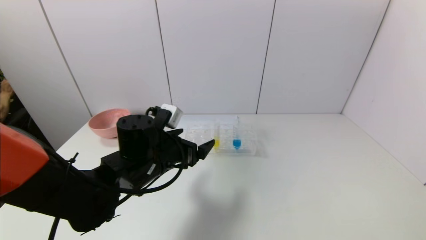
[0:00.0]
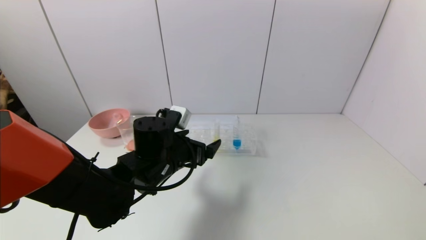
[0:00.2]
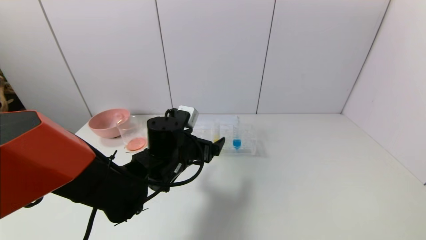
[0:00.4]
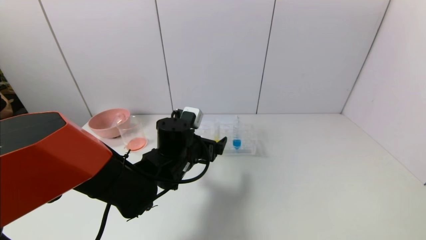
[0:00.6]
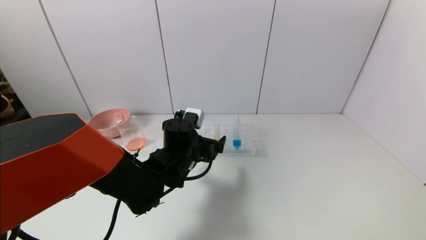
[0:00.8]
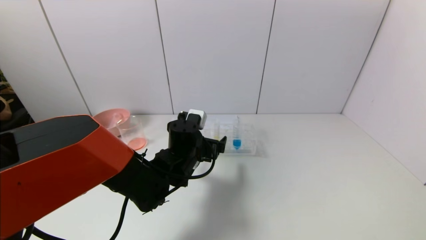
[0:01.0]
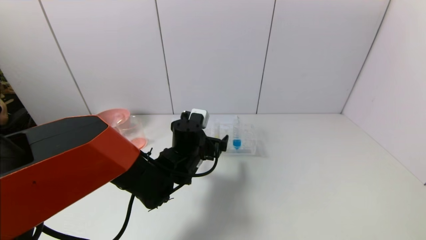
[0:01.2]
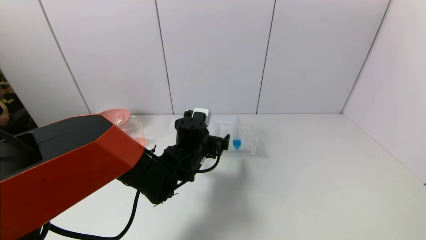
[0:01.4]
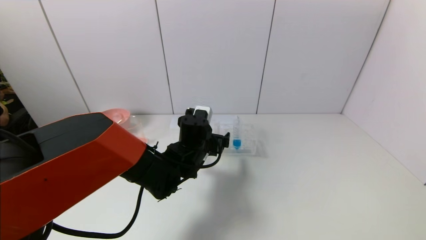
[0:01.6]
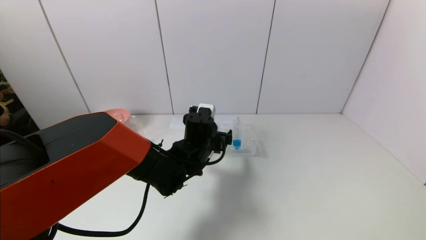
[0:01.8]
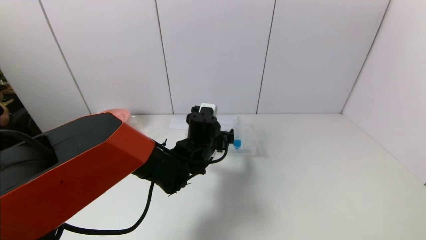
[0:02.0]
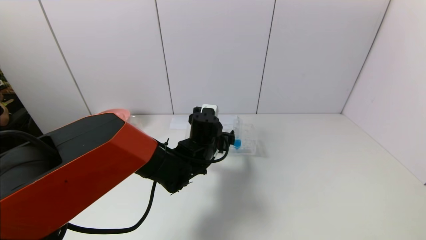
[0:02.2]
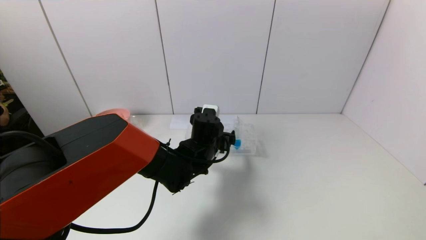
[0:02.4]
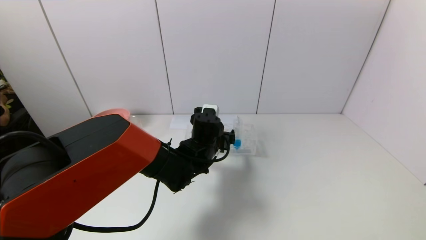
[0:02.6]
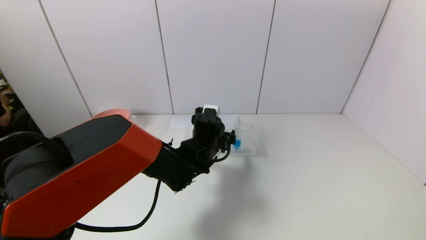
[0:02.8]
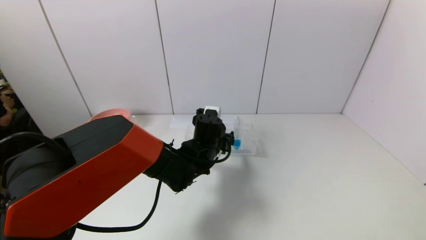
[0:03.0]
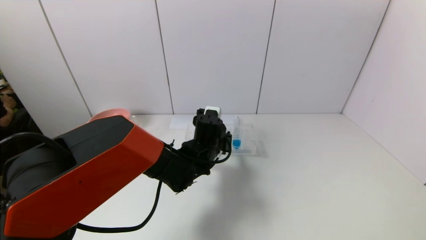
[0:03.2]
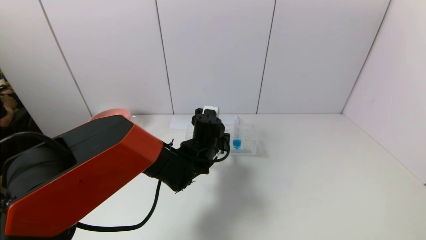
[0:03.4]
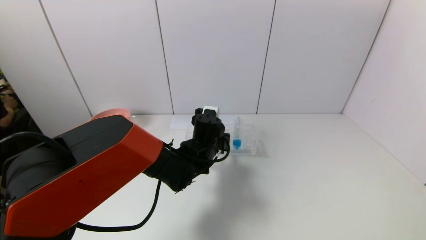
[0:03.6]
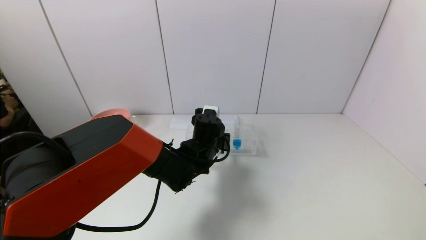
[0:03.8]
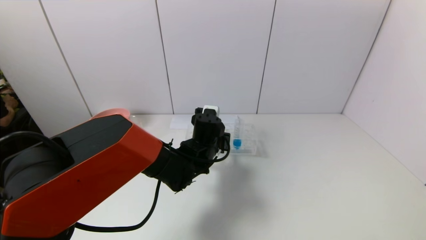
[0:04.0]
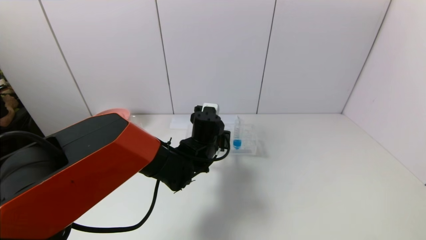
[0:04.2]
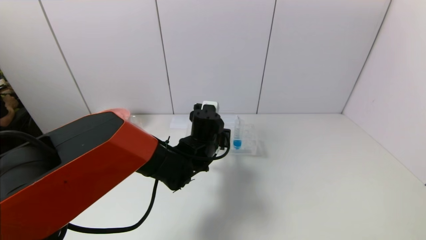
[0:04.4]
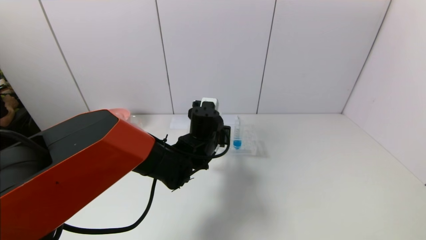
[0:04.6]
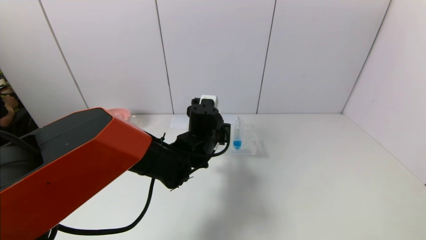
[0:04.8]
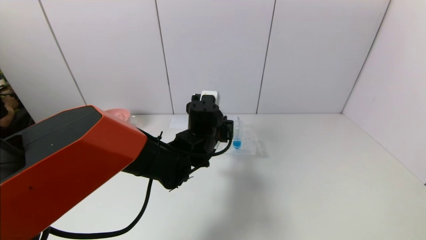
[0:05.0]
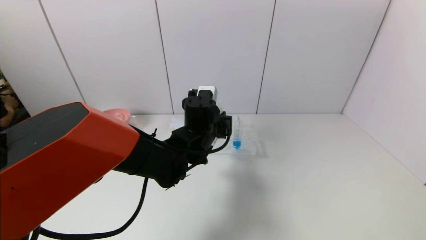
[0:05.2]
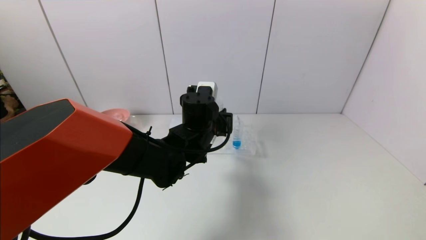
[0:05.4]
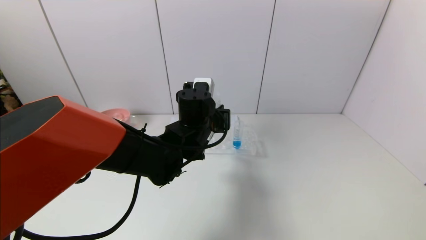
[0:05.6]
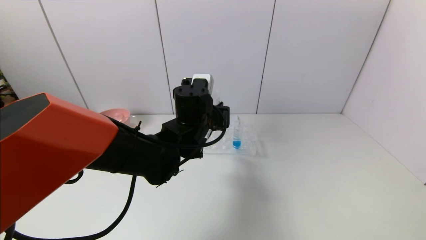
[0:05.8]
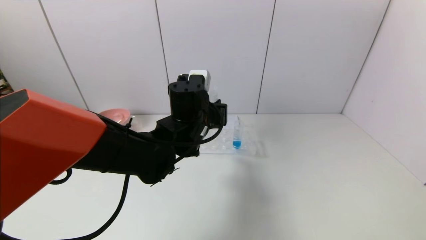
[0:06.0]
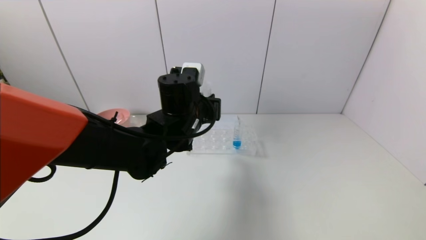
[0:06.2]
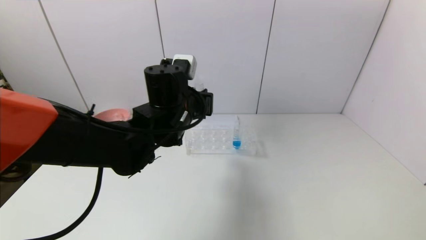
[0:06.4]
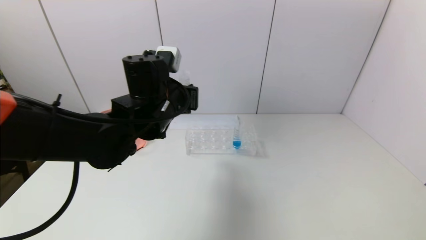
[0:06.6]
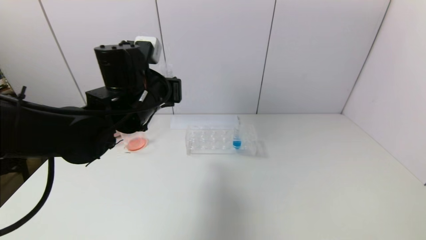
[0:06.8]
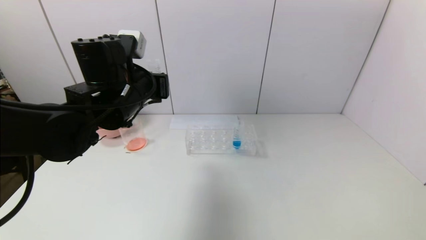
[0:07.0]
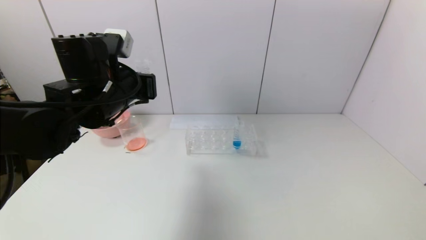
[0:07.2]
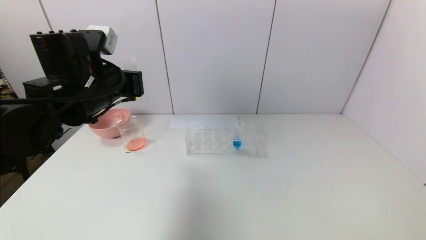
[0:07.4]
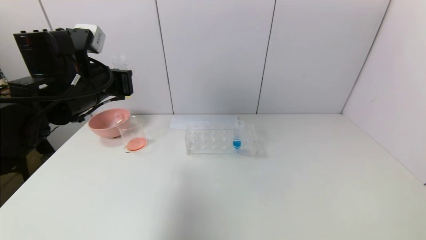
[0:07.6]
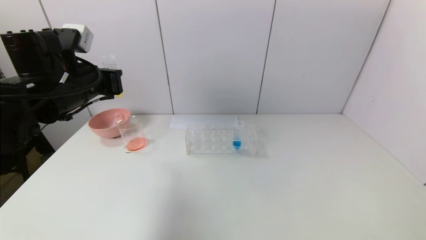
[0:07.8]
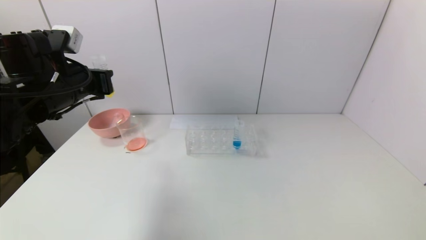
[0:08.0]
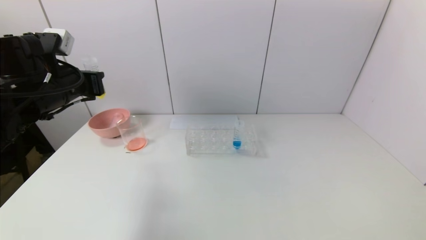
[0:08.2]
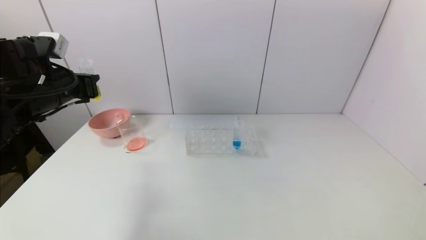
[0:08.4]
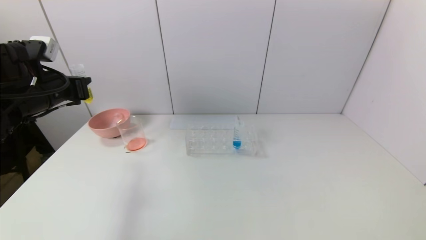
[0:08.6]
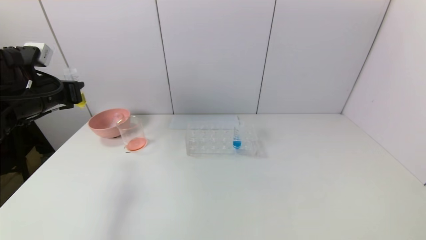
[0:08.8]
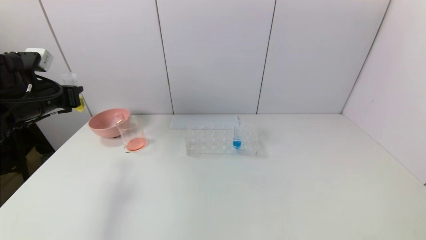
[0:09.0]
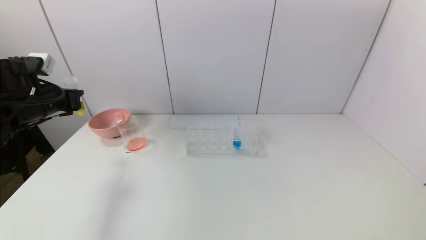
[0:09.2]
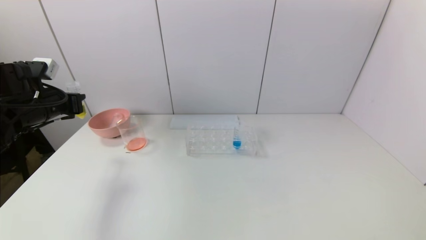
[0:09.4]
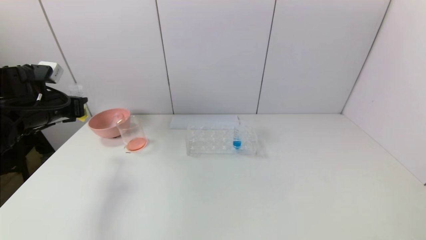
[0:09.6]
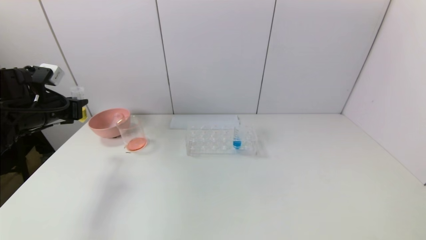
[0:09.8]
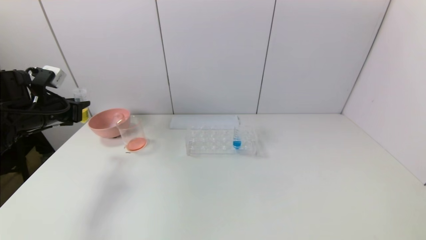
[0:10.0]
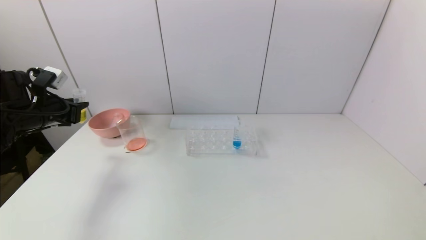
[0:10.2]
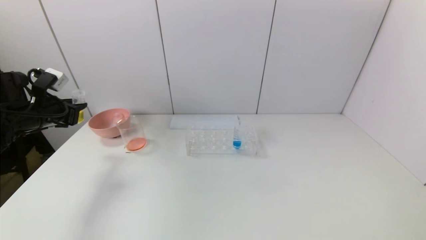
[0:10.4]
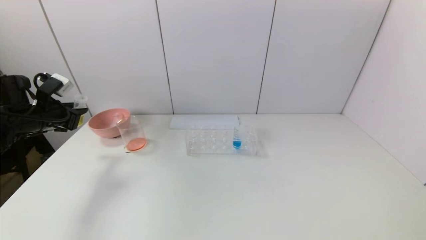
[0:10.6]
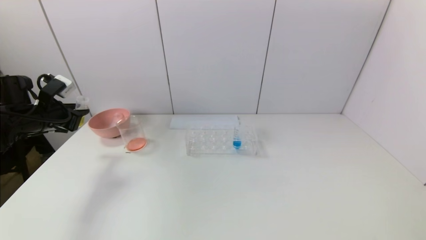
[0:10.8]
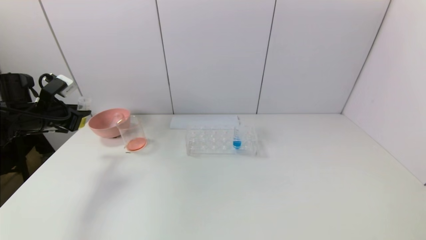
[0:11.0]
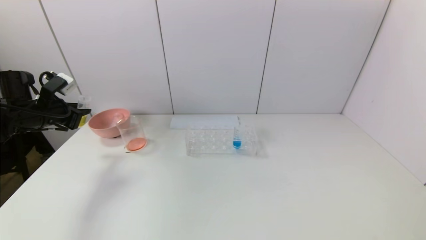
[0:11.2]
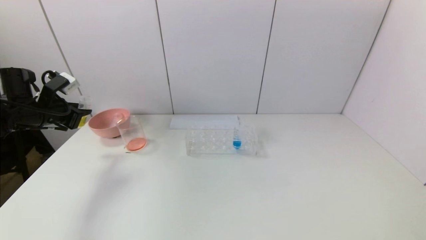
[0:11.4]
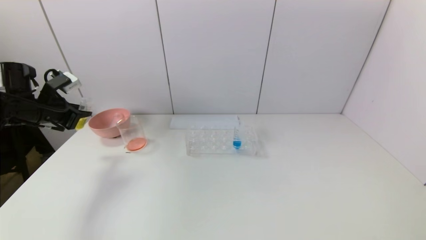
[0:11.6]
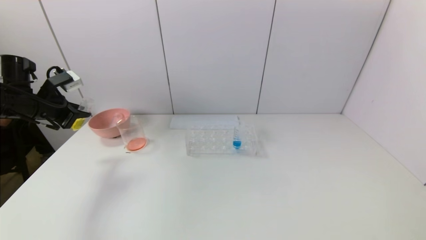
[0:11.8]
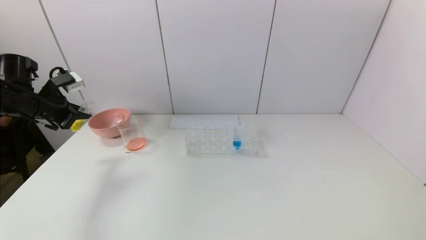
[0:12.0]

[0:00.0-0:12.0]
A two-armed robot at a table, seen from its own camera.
Task of the whole recording: pick up the test tube with yellow pigment and the test tube with red pigment by grippers and pour them into the beaker.
Step, 0.0 to 3.6 s: Grasp the yellow reagent with the left gripper.
0.0 to 1.6 s: The left gripper moves to the right and forward, some 10 cm.
1.6 to 3.0 s: The grippers stay close to where they were, moving slightly.
3.0 to 4.4 s: The left gripper closes.
4.4 to 6.0 s: The left gripper heads upward, covering some 10 cm.
6.0 to 7.6 s: The left gripper moves to the left and upward, approximately 20 cm.
7.6 to 9.0 s: The left gripper heads to the left, covering some 15 cm.
9.0 to 10.4 s: The left gripper changes place by about 5 cm.

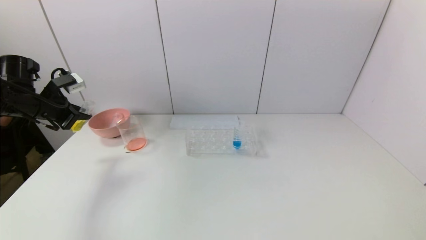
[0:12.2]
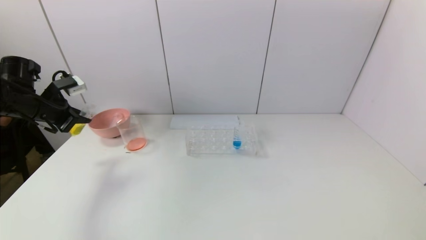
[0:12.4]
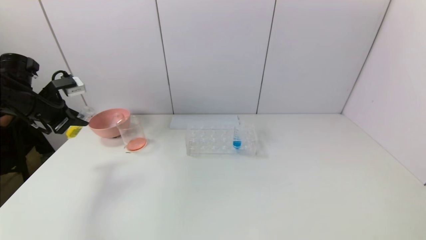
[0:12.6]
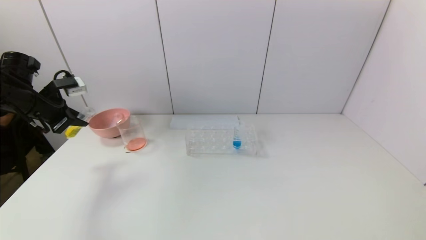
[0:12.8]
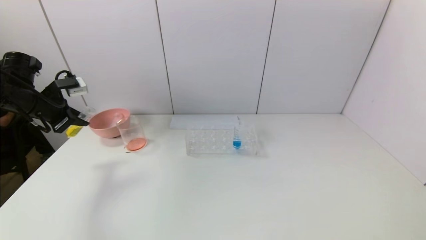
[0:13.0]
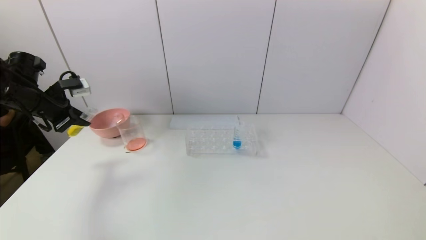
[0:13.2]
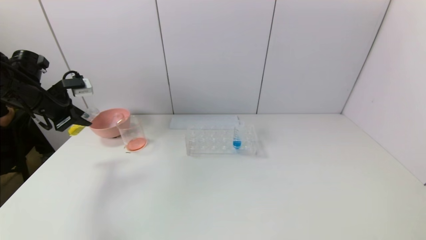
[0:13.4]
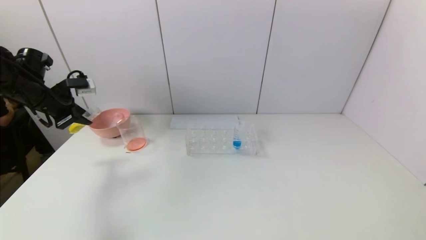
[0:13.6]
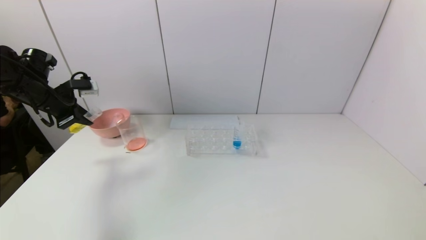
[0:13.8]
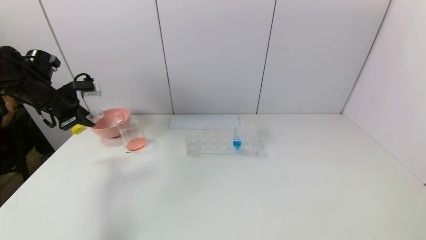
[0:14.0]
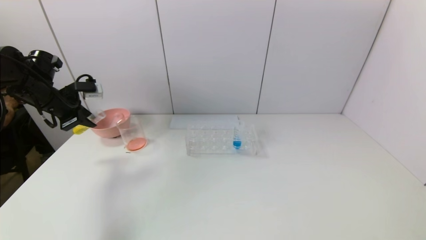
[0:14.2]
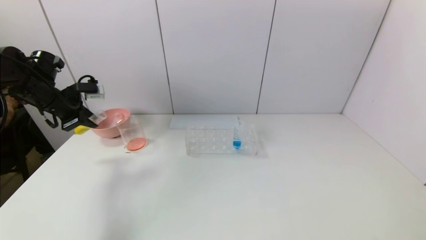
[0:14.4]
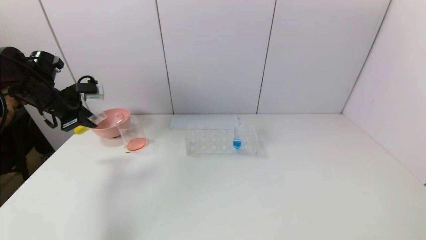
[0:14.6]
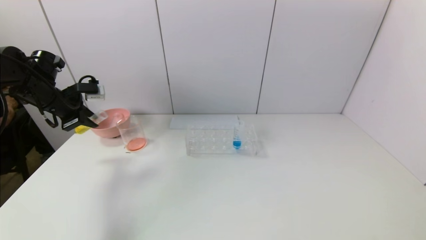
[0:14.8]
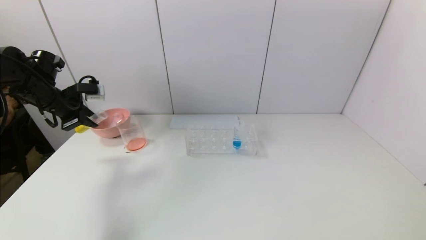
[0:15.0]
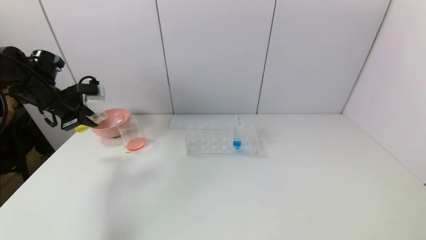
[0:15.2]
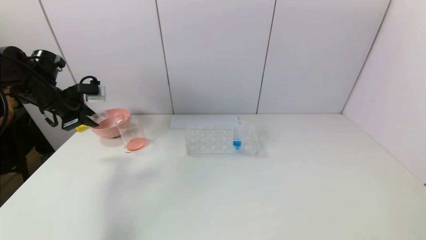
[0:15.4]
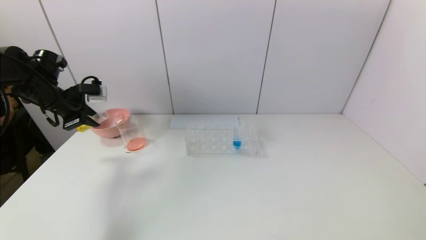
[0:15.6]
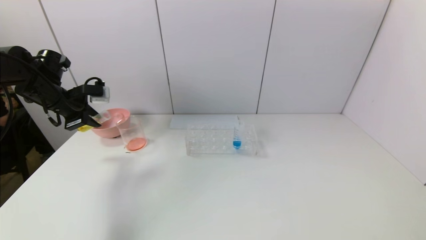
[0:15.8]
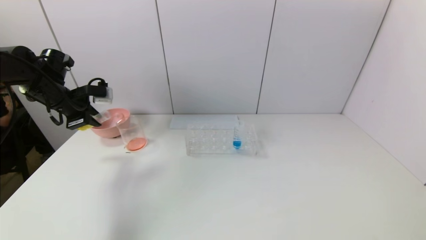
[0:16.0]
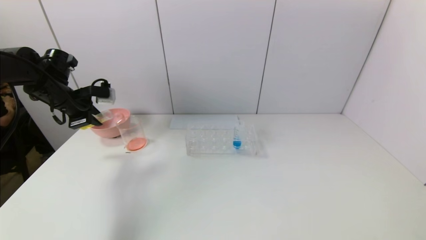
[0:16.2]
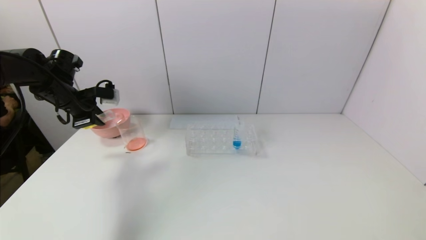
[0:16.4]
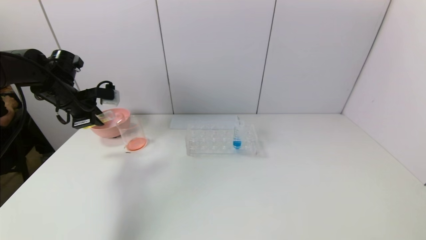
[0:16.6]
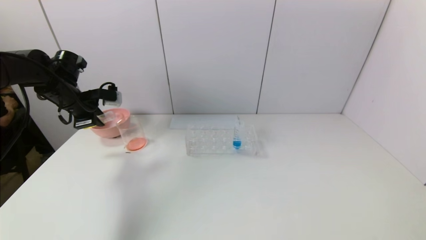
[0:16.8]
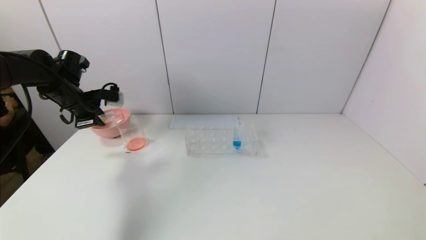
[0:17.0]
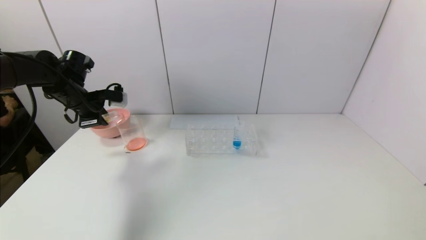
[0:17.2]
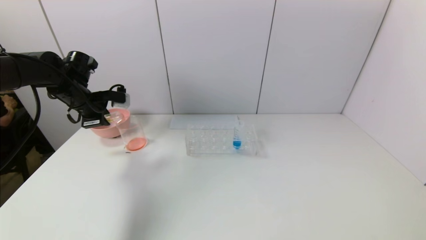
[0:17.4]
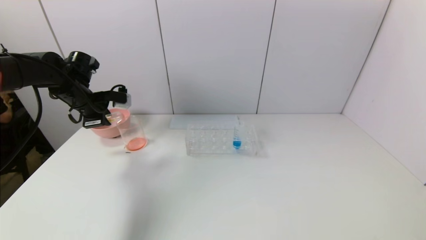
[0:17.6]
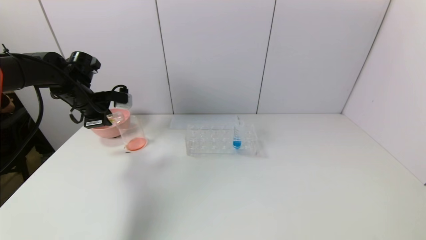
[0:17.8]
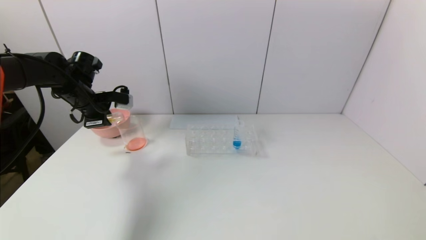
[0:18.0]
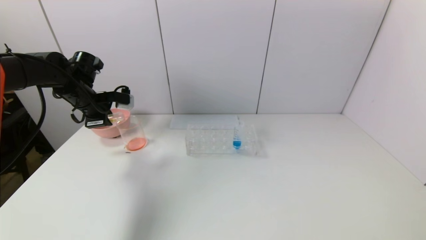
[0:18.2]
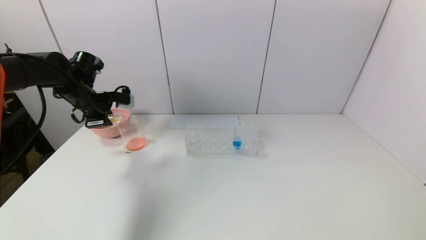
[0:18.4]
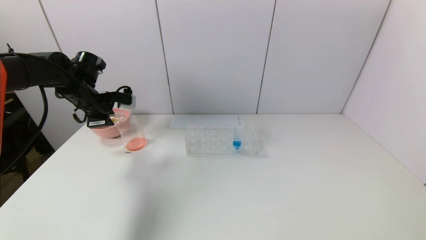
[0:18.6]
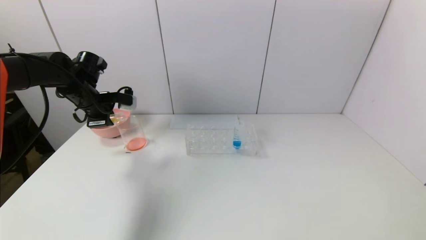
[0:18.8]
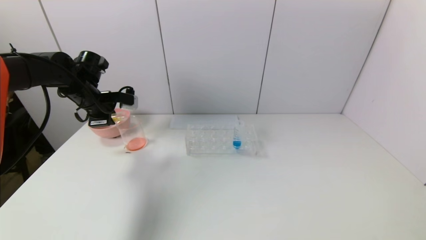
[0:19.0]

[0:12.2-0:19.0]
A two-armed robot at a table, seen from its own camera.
Task of the whole recording: pick up the test tube with yellow pigment and the test tube with red pigment by grippers and pour them into the beaker.
13.6 to 16.2 s: The grippers make only small movements.
16.2 to 19.0 s: The grippers make only small movements.
